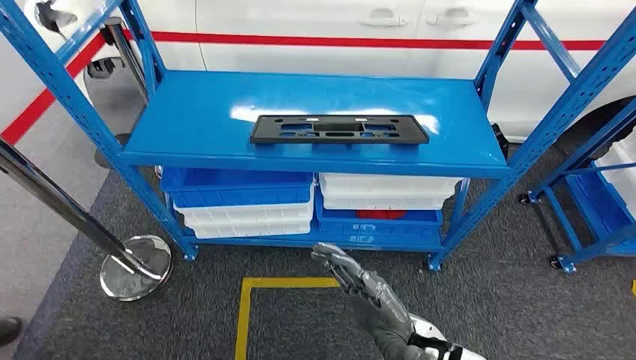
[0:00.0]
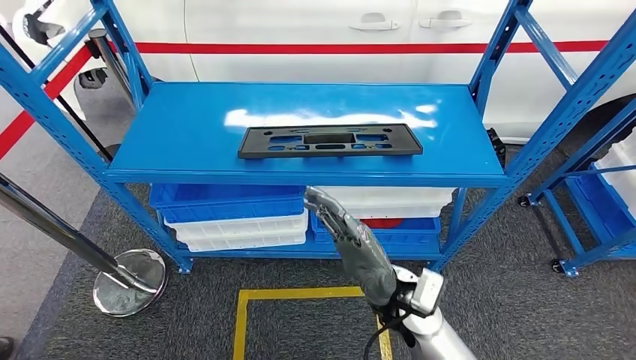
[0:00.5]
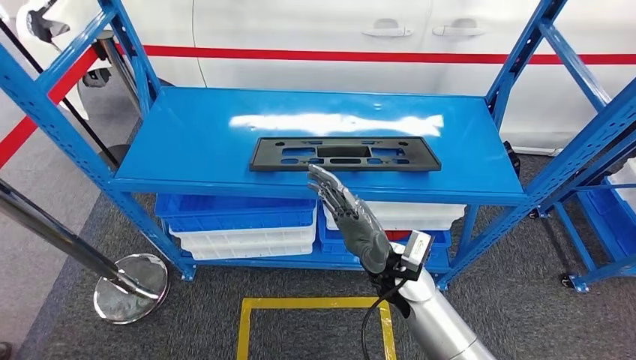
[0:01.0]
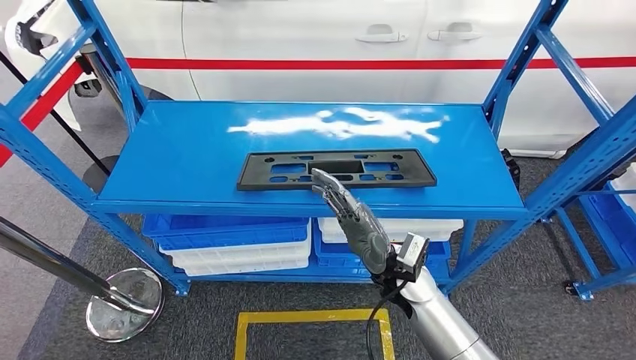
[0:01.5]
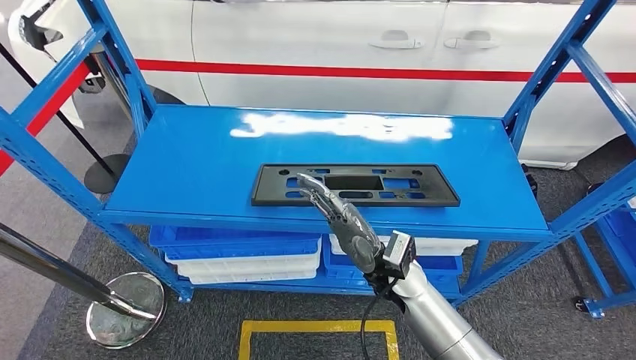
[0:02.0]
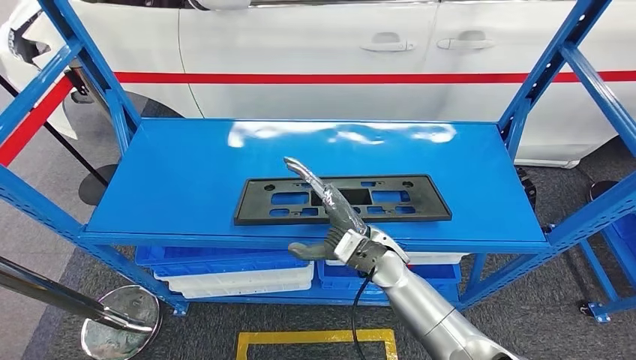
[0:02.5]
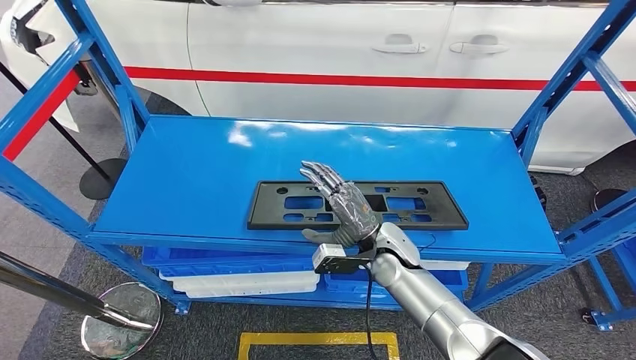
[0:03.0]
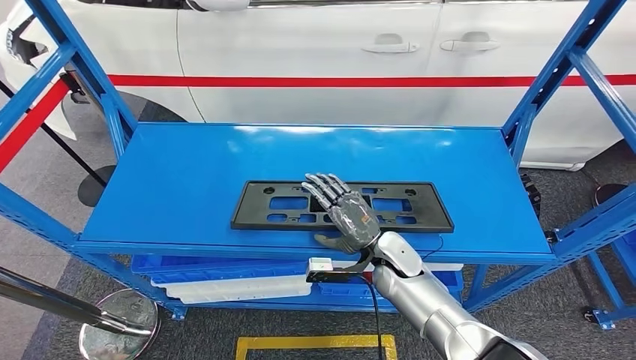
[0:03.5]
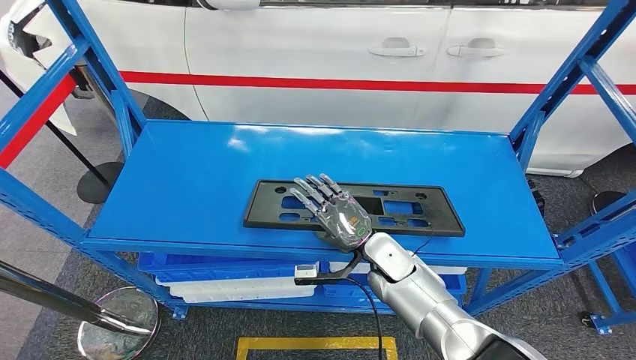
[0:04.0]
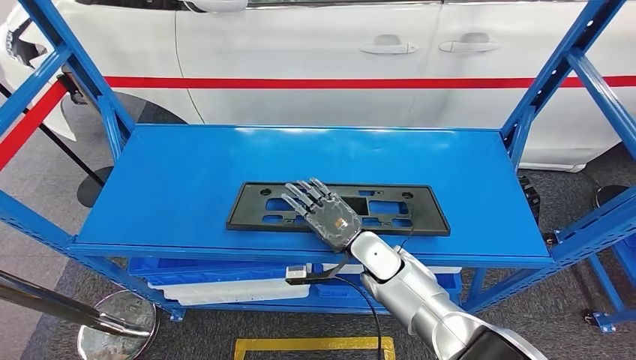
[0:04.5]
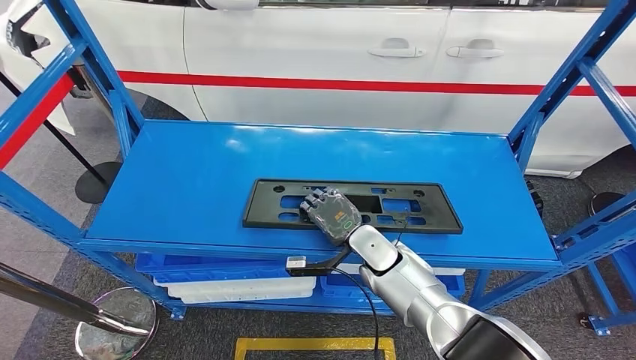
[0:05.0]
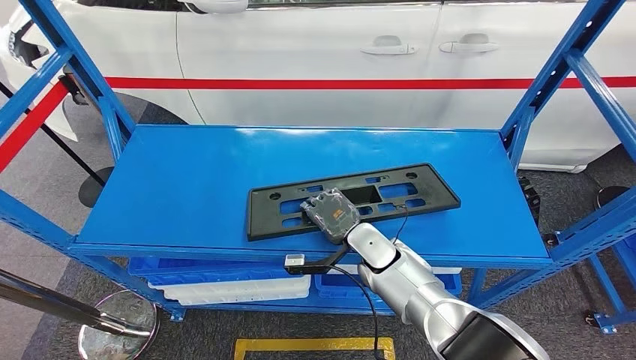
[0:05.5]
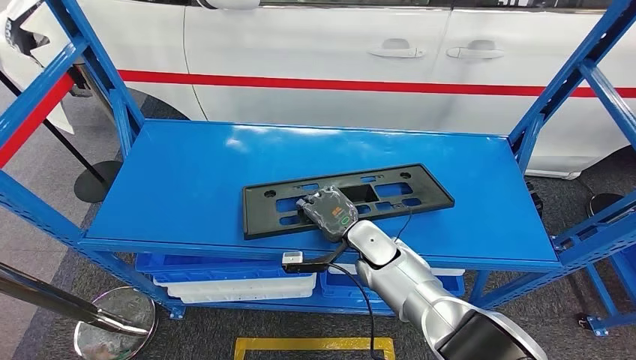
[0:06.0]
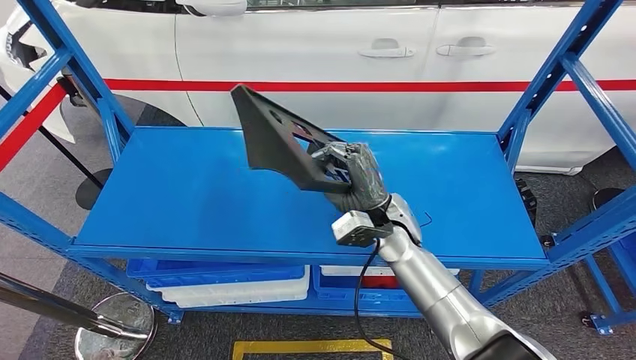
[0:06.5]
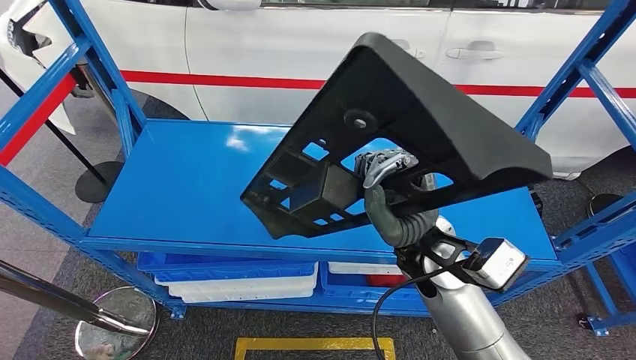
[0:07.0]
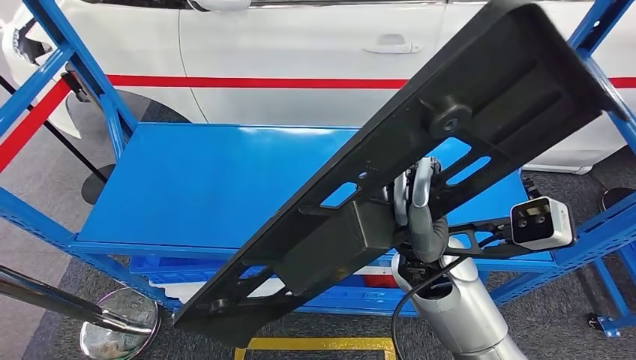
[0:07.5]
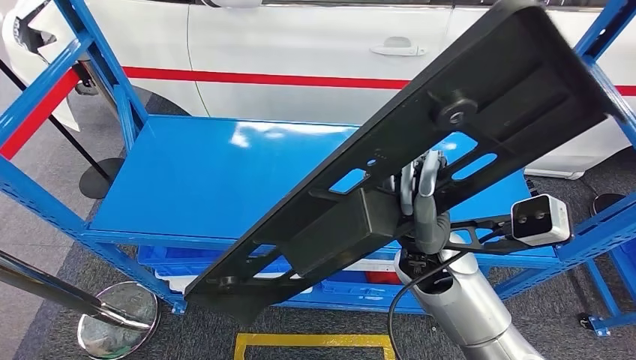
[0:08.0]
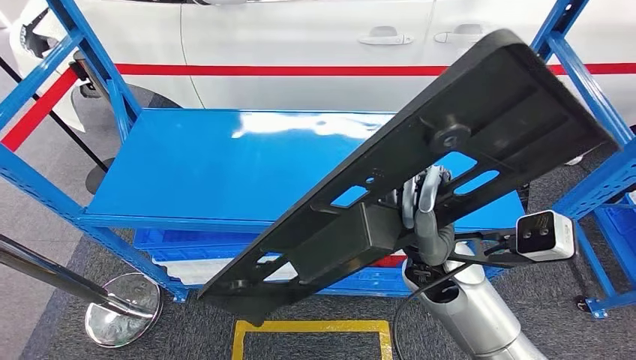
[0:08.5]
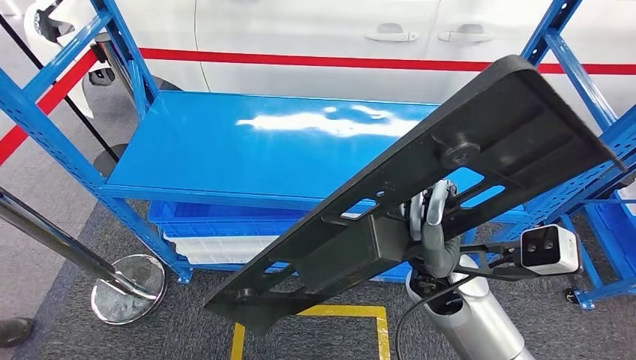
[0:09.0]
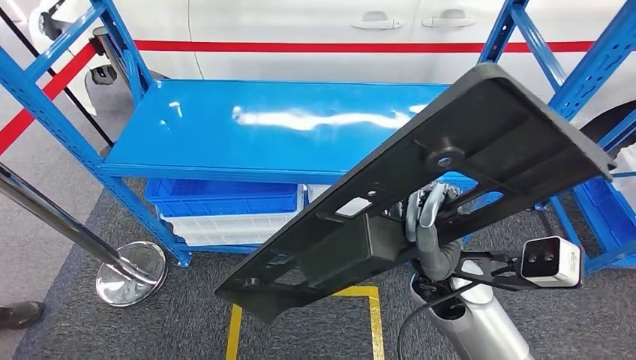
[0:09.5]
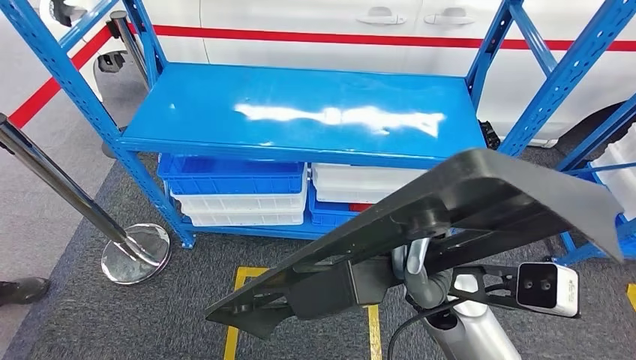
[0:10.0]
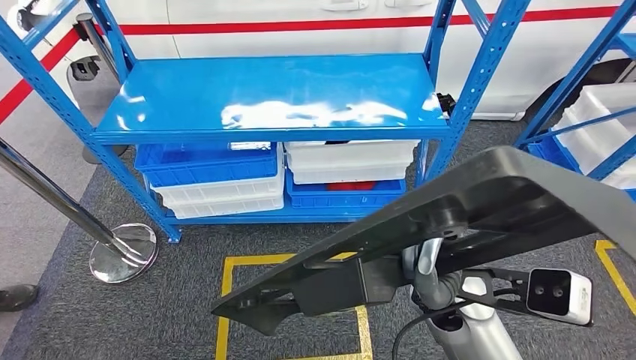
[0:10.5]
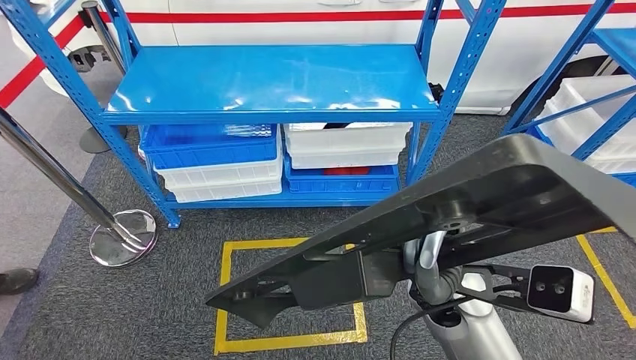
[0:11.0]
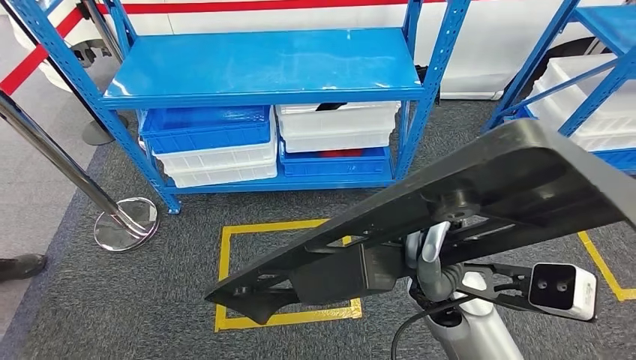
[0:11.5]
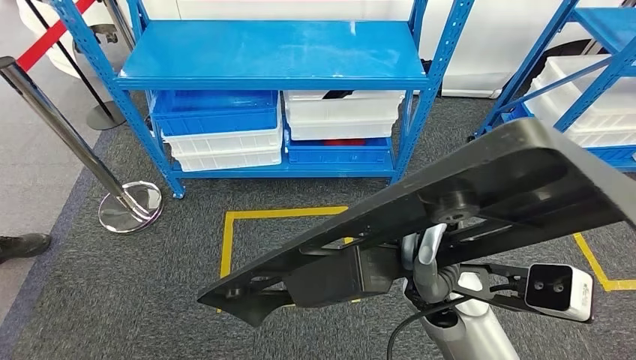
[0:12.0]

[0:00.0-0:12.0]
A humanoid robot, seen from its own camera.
Step, 0:00.0 to 0:06.0: Pick up the large material from the shelf.
0:04.0 to 0:06.0: The hands make only small movements.

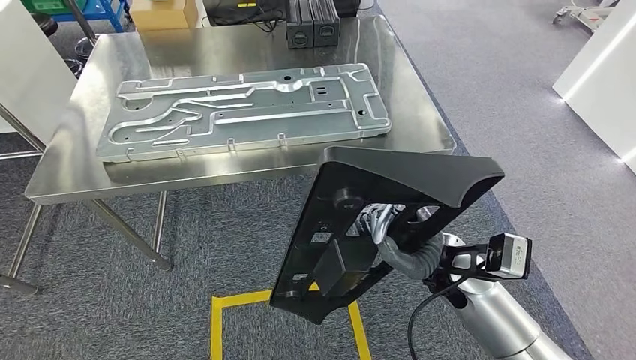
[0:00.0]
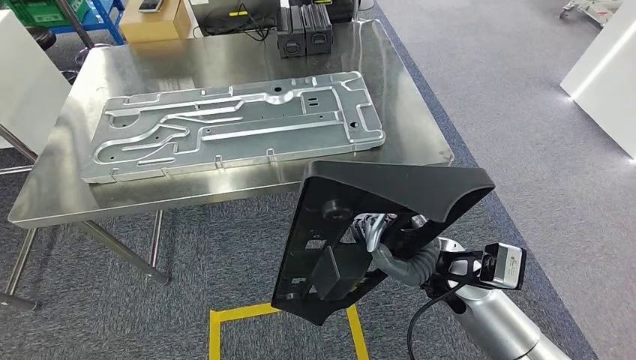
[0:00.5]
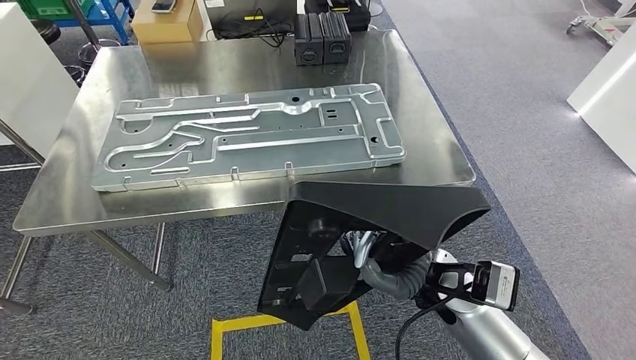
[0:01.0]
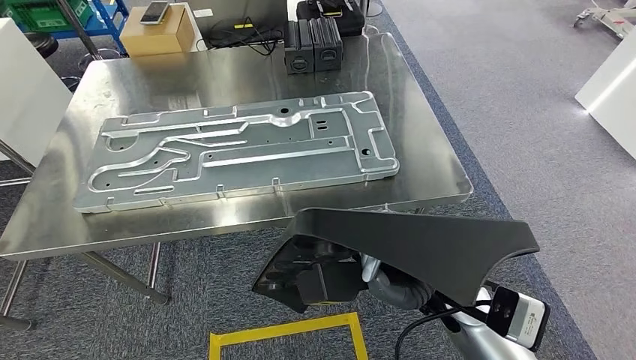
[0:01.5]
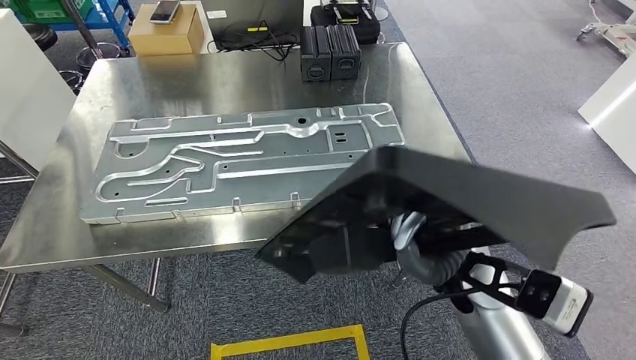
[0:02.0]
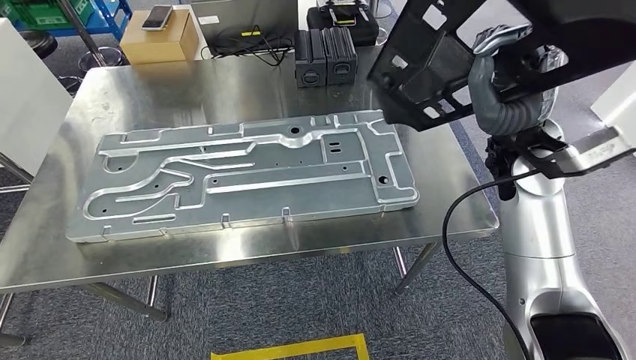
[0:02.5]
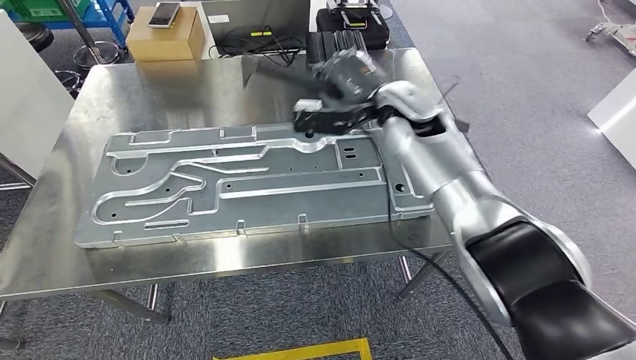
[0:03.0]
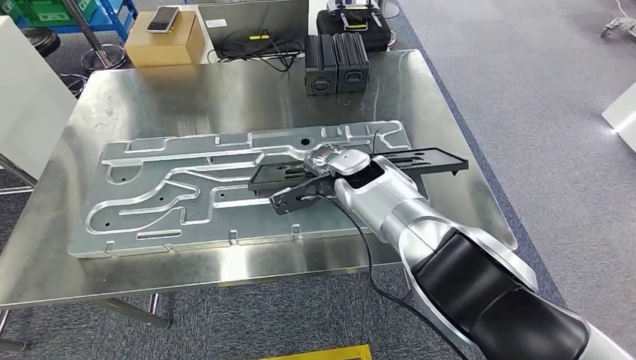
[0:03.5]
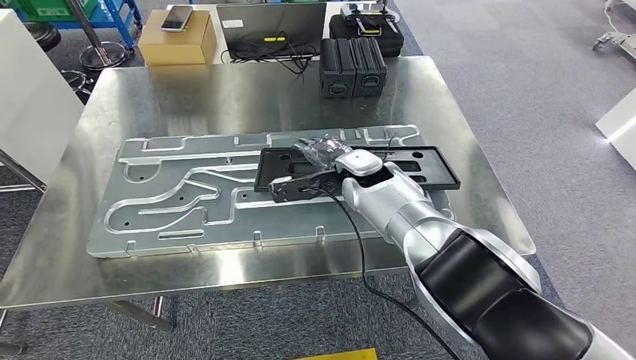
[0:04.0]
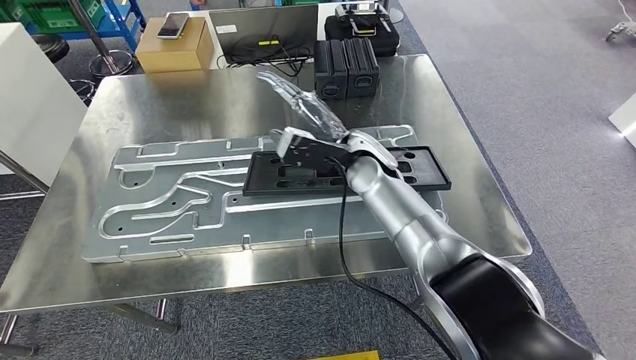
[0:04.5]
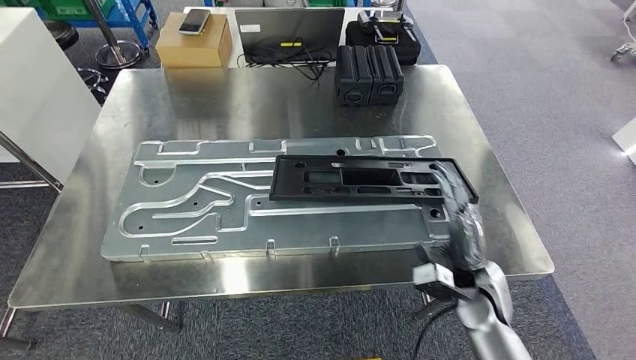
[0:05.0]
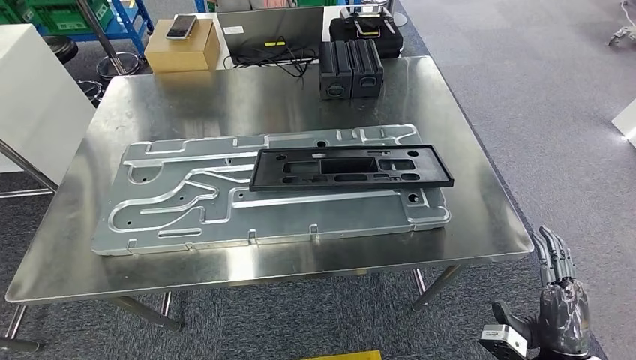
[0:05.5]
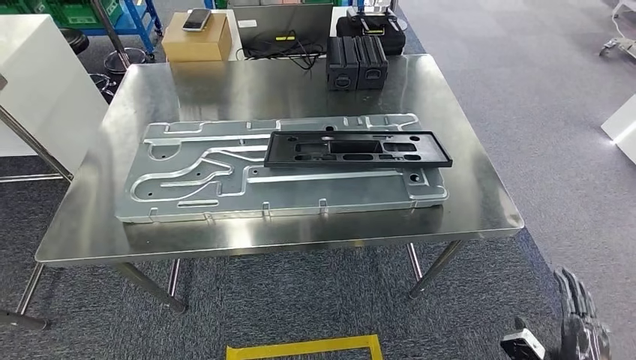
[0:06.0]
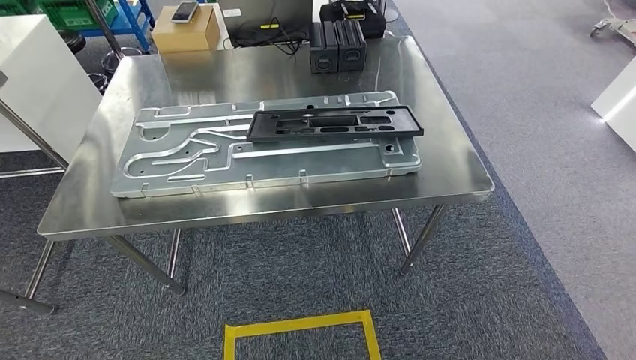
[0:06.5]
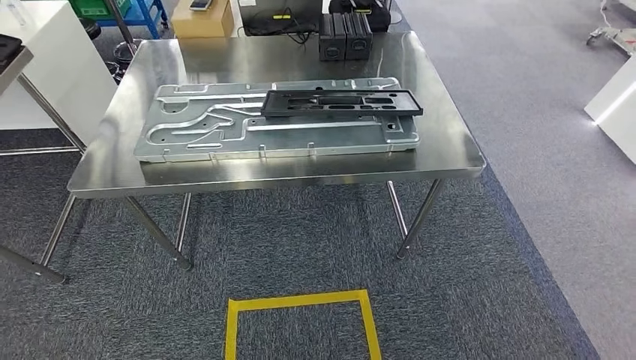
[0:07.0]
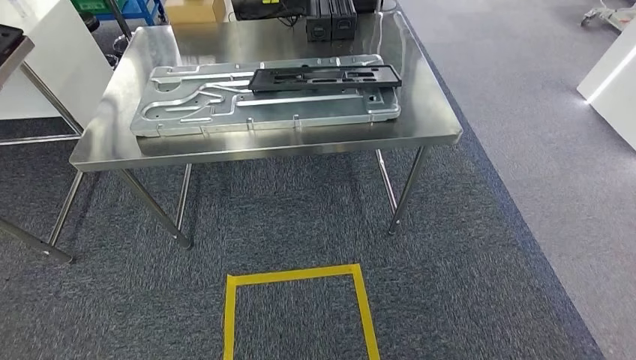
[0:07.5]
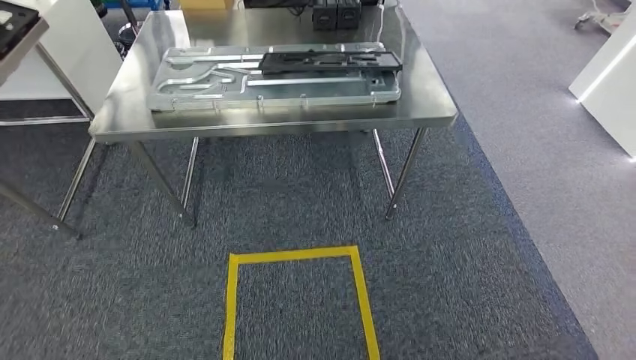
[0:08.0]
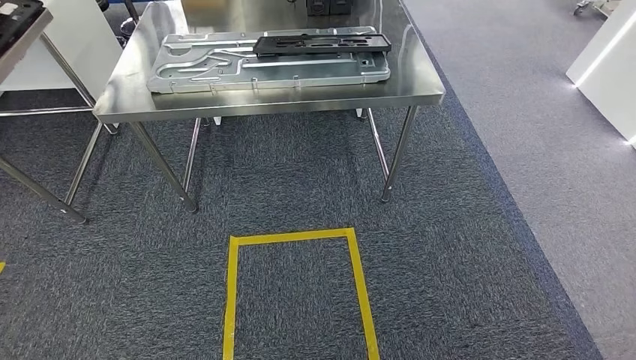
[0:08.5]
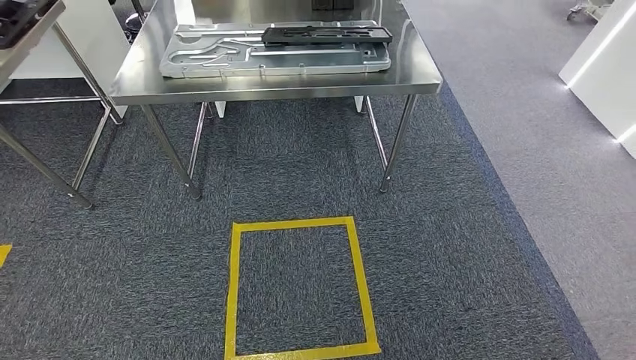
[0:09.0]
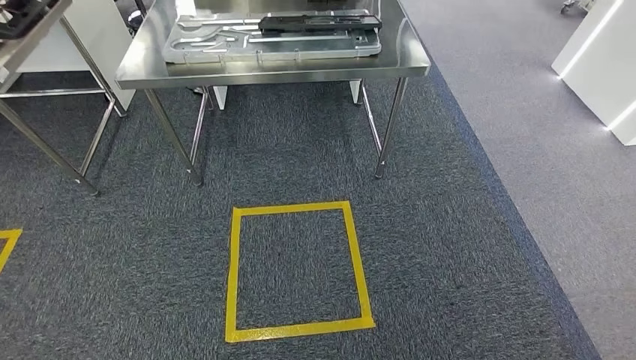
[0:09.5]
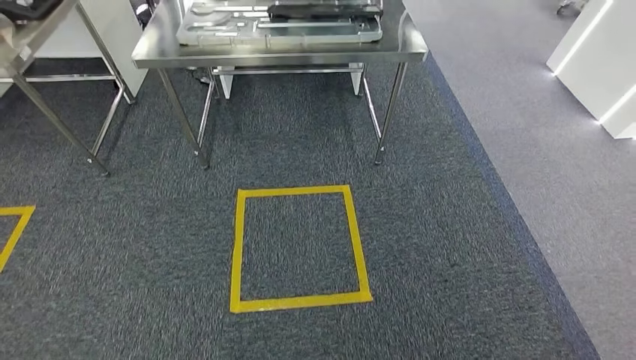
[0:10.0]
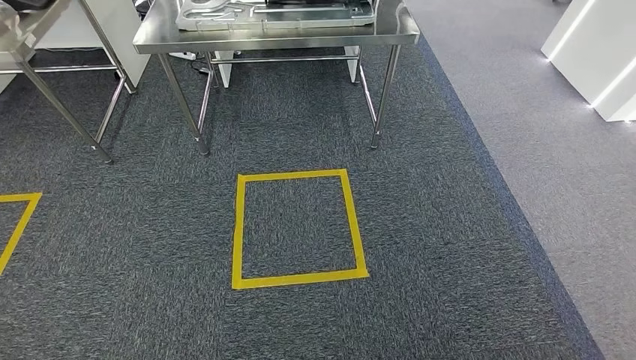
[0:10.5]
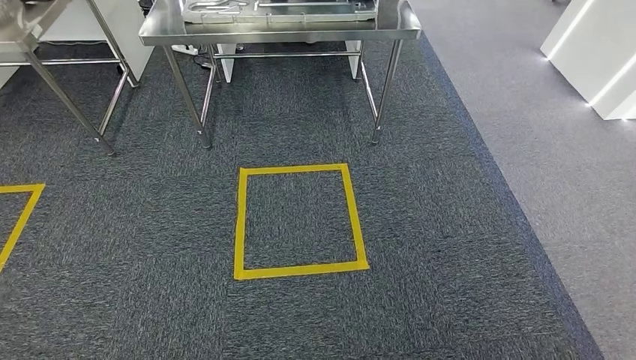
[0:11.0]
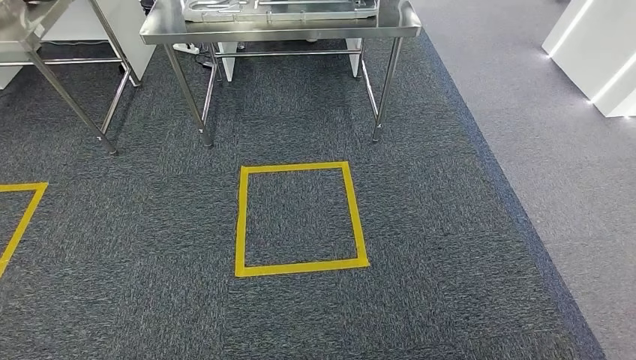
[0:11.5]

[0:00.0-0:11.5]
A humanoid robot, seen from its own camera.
Step, 0:03.5 to 0:07.0: Insert the large material into the corresponding slot on the workbench.
